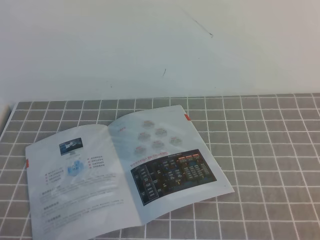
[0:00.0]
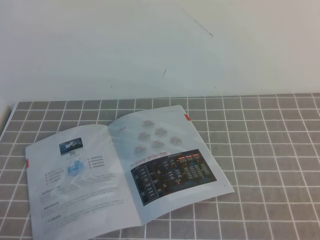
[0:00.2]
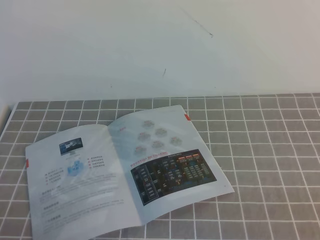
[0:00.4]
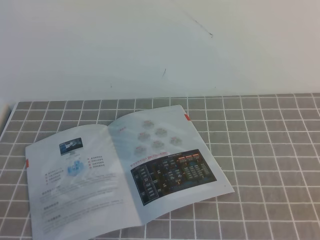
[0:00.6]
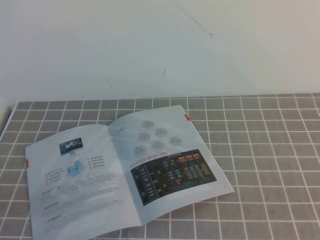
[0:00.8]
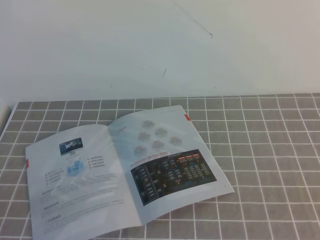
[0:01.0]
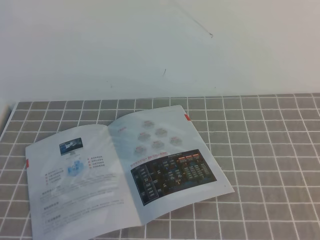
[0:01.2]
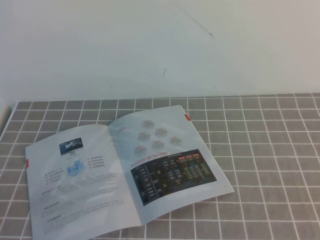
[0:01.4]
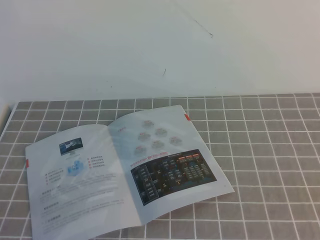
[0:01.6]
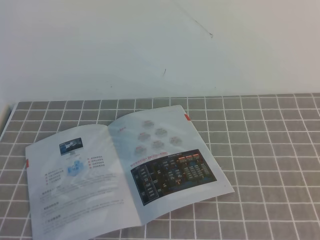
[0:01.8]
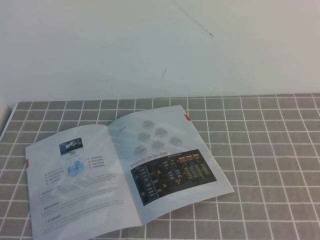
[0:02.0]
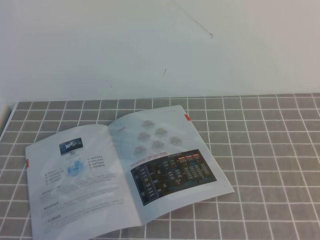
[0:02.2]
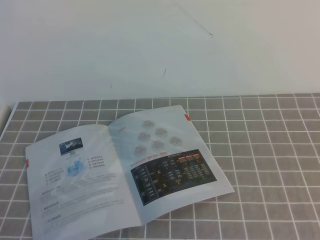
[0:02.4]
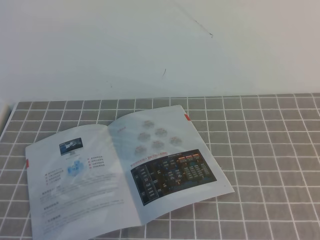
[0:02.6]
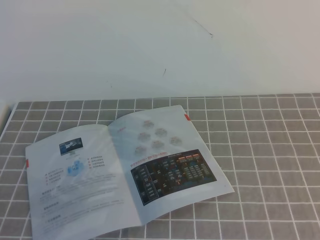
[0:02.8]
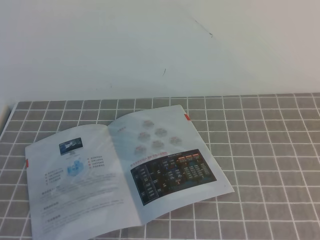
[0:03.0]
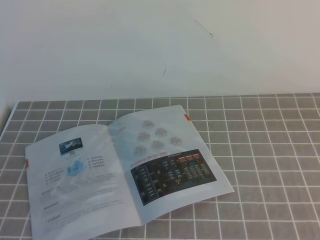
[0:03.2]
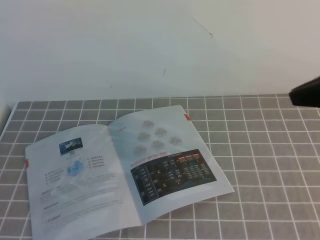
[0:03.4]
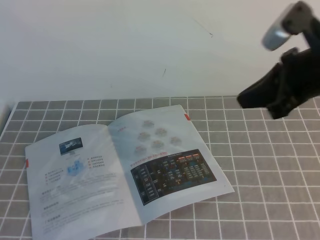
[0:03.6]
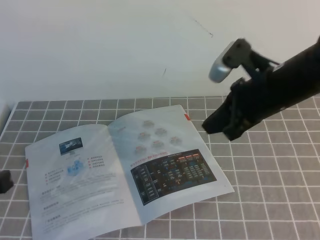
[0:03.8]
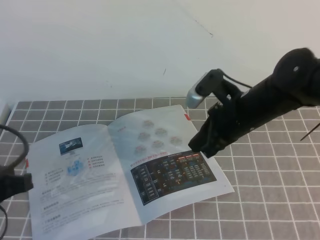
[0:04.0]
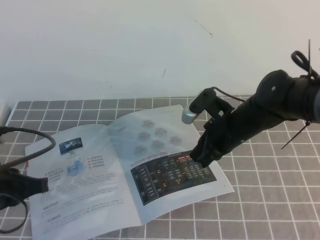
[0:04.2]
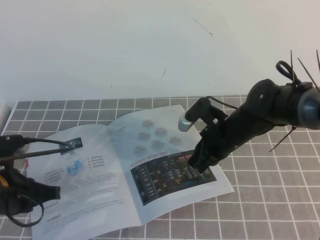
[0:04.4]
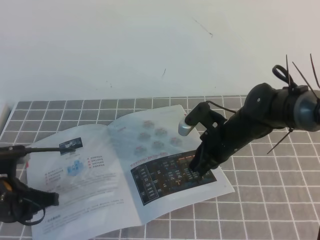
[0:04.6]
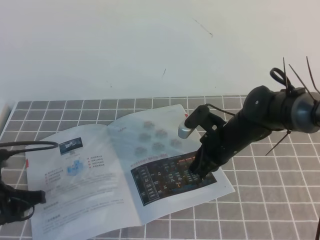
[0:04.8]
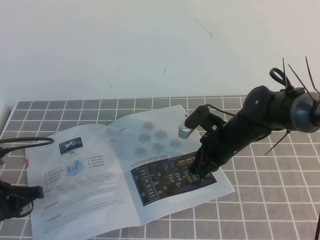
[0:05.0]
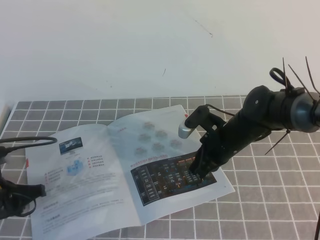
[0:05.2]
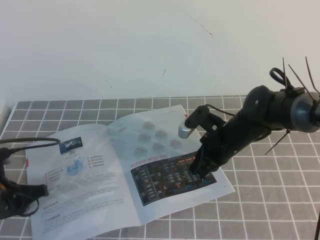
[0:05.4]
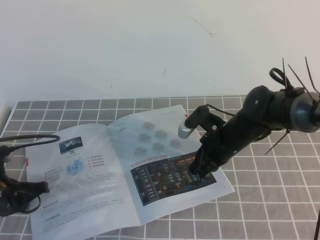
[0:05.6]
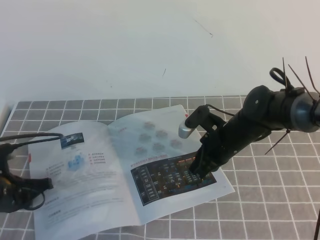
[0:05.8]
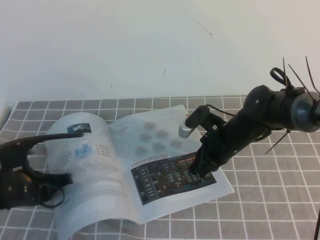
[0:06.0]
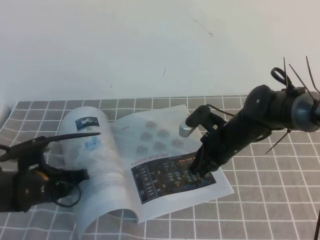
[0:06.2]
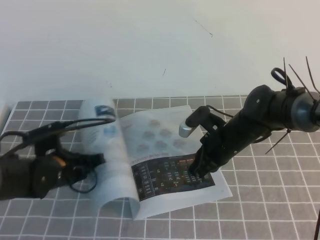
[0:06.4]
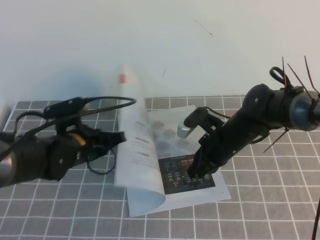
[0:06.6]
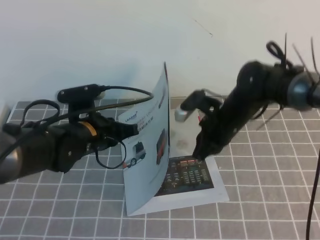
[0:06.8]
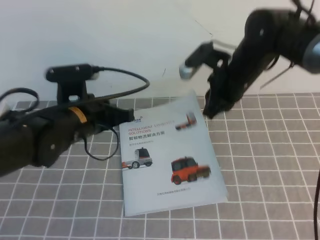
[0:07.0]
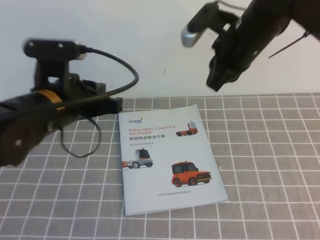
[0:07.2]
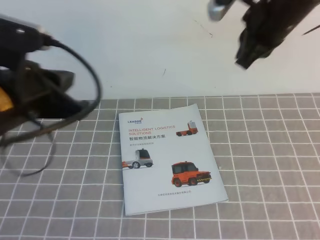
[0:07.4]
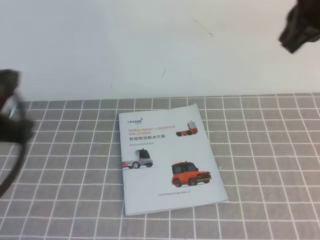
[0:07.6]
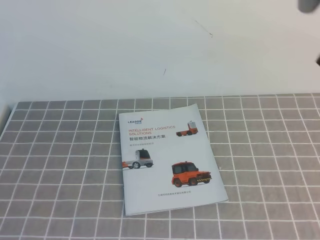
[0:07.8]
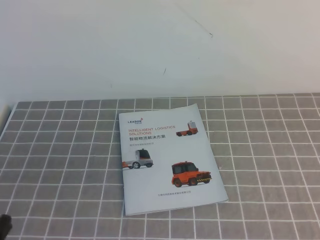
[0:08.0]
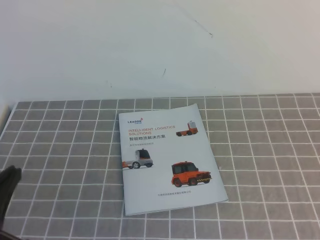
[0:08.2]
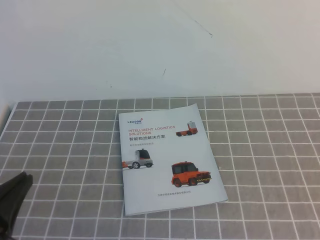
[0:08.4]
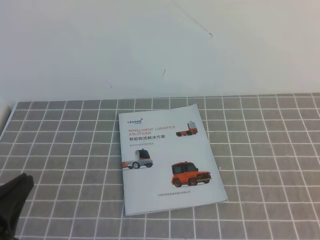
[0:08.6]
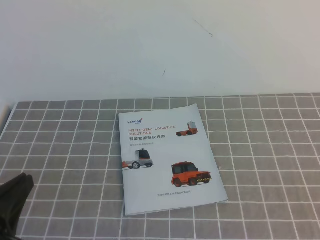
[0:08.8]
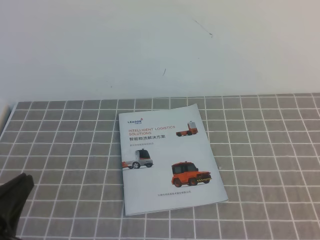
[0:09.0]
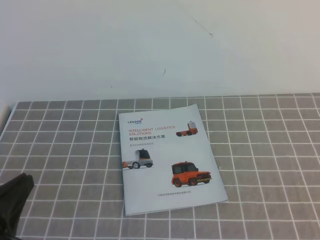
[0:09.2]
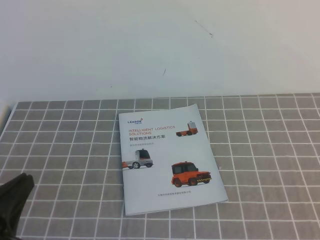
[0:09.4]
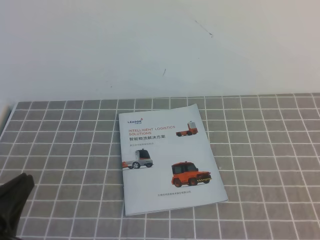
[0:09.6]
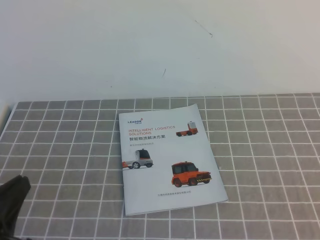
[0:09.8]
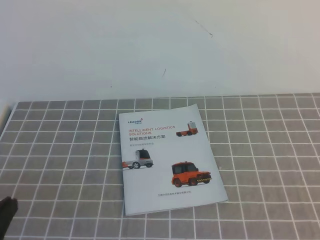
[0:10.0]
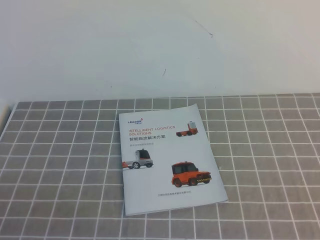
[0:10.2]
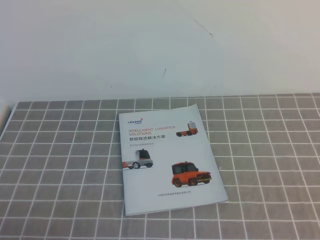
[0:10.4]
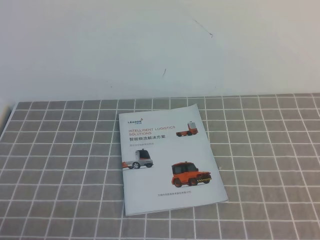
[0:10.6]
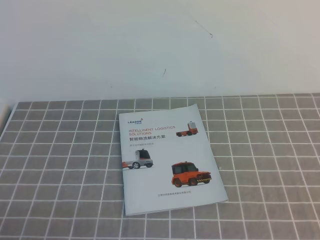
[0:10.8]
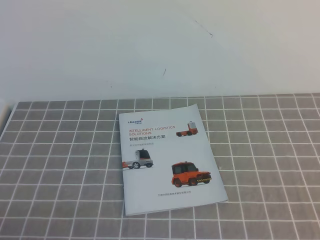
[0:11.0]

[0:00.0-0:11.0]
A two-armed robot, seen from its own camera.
Task of the whole recording: on the grey tablecloth, hold the book with one hand and close it with the other.
0:03.2 to 0:04.8: The right gripper goes some 35 cm downward, to the left and forward. Meanwhile the left gripper goes about 25 cm forward and downward.
0:04.8 to 0:06.2: The left gripper shifts approximately 5 cm to the right.
0:06.2 to 0:07.8: The right gripper goes about 30 cm upward; the left gripper travels upward and backward by roughly 30 cm.
0:07.8 to 0:09.4: The right gripper is displaced backward and downward by approximately 30 cm. Meanwhile the left gripper moves downward, some 10 cm.
0:09.4 to 0:11.0: The left gripper moves downward, roughly 10 cm.
